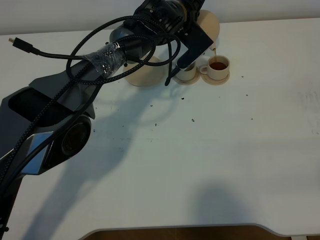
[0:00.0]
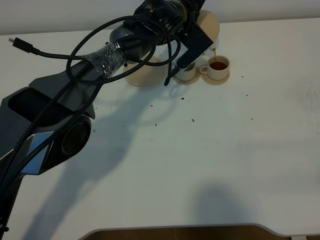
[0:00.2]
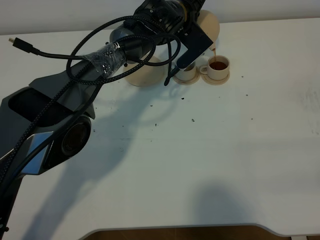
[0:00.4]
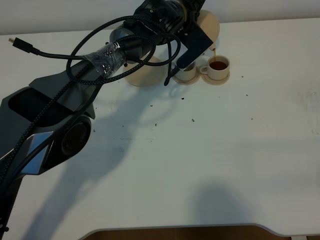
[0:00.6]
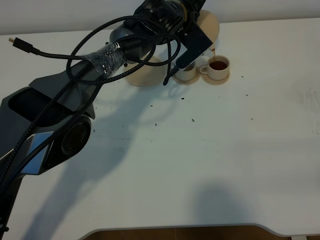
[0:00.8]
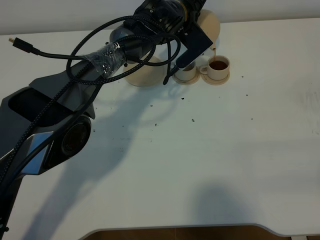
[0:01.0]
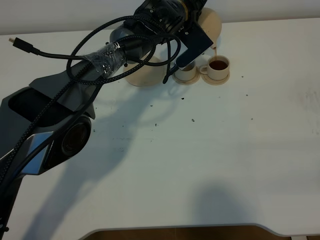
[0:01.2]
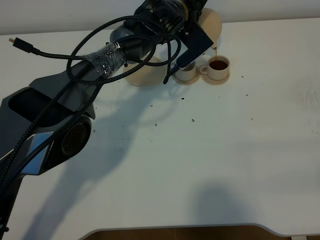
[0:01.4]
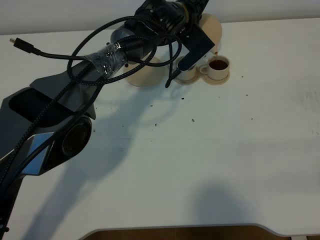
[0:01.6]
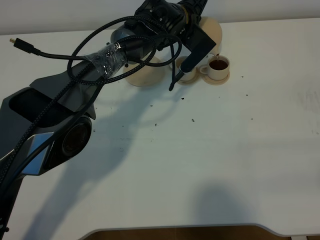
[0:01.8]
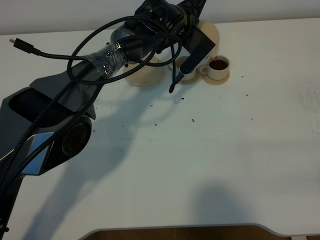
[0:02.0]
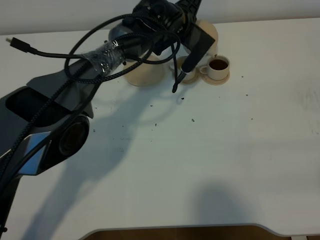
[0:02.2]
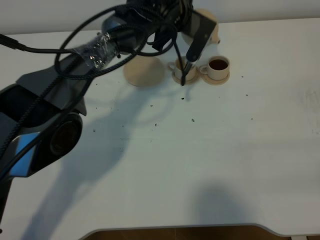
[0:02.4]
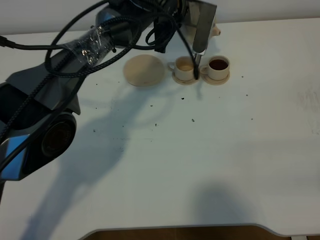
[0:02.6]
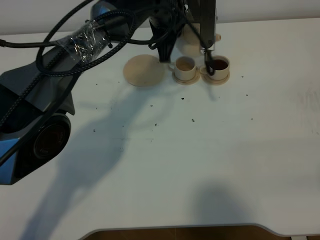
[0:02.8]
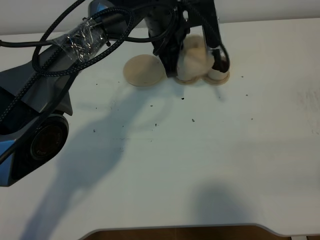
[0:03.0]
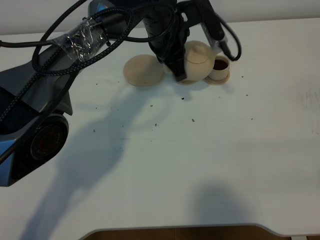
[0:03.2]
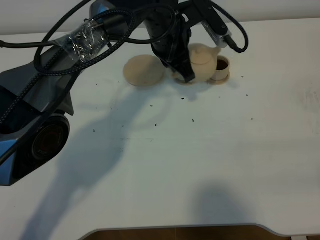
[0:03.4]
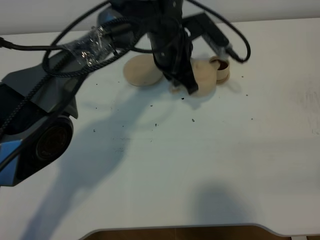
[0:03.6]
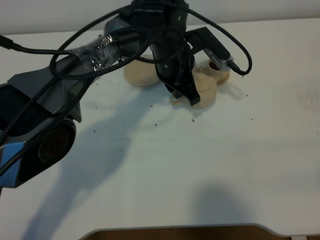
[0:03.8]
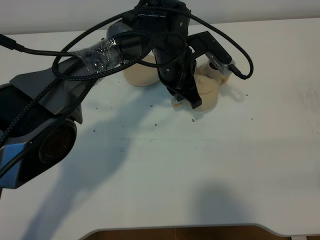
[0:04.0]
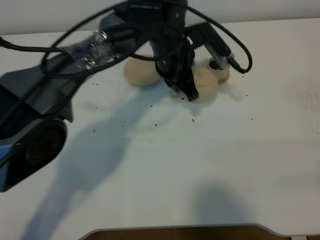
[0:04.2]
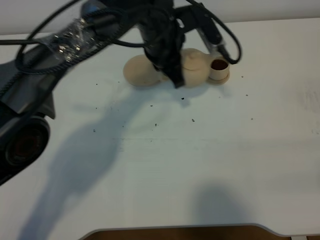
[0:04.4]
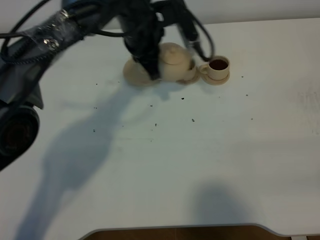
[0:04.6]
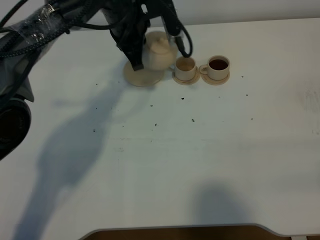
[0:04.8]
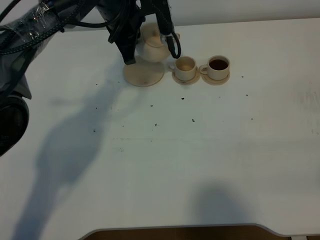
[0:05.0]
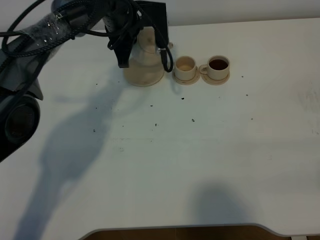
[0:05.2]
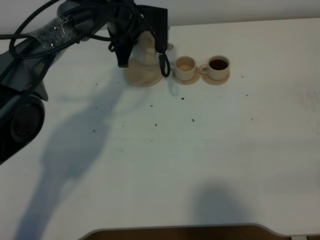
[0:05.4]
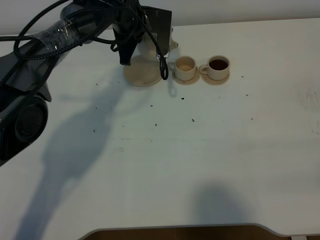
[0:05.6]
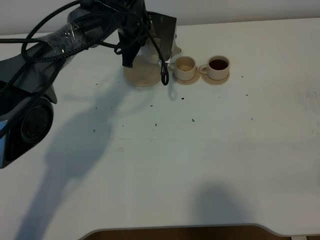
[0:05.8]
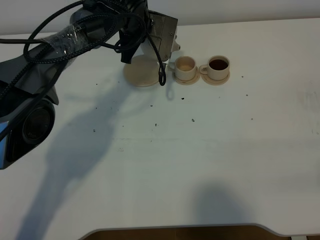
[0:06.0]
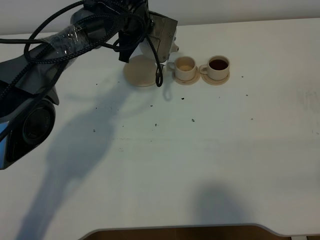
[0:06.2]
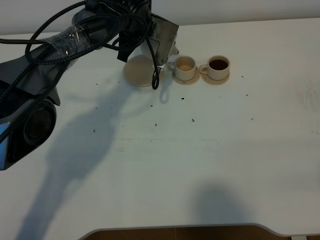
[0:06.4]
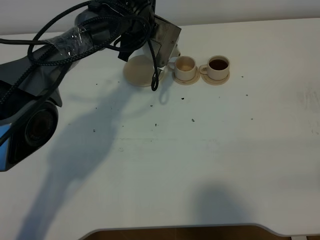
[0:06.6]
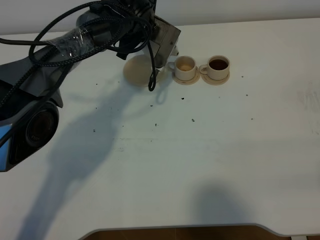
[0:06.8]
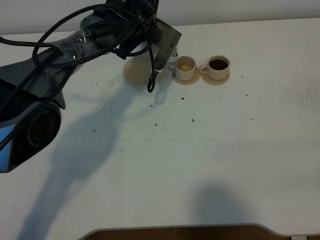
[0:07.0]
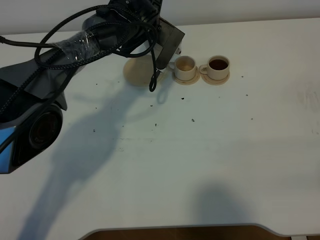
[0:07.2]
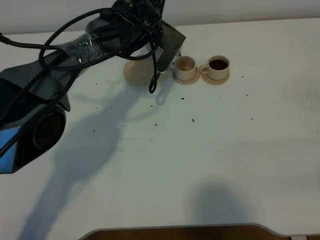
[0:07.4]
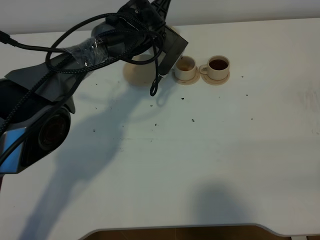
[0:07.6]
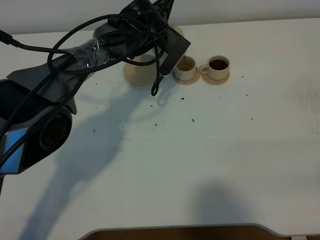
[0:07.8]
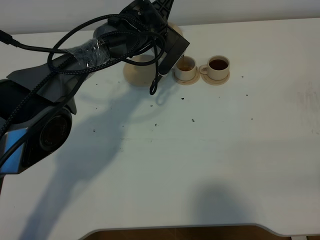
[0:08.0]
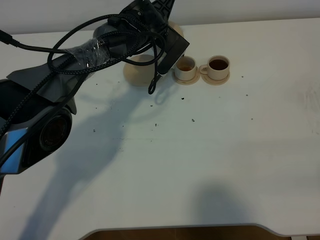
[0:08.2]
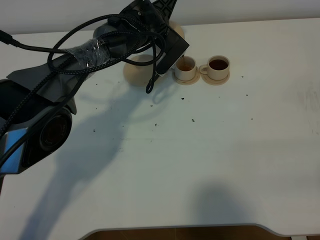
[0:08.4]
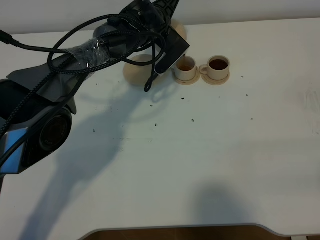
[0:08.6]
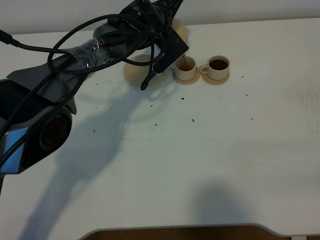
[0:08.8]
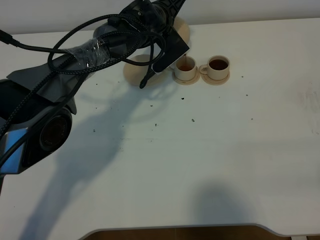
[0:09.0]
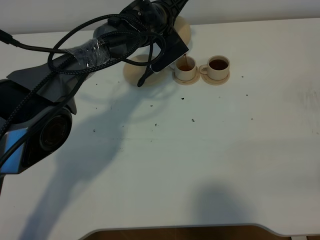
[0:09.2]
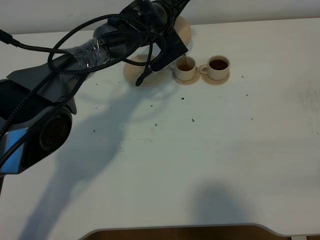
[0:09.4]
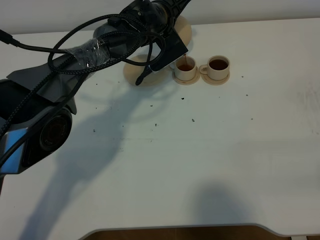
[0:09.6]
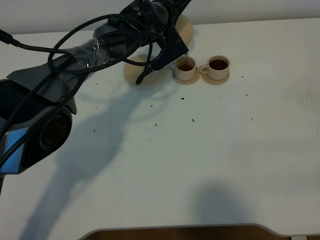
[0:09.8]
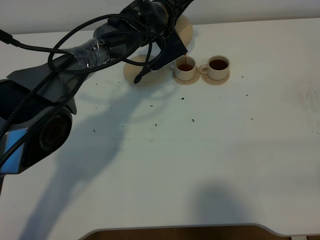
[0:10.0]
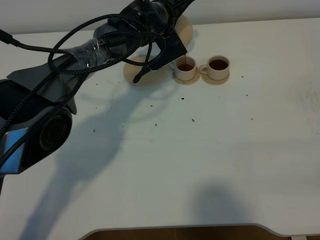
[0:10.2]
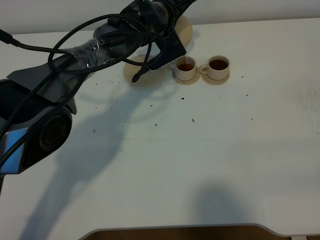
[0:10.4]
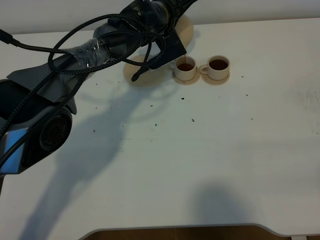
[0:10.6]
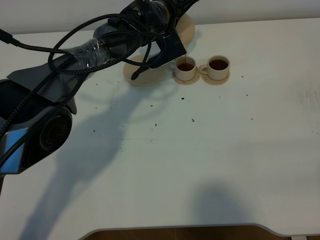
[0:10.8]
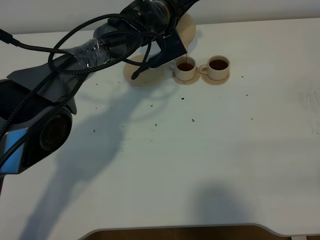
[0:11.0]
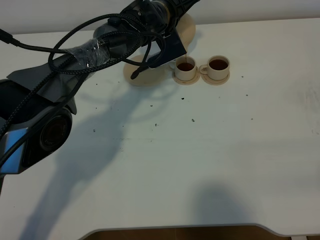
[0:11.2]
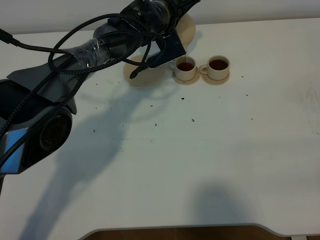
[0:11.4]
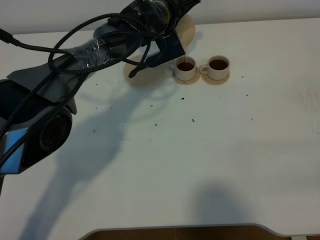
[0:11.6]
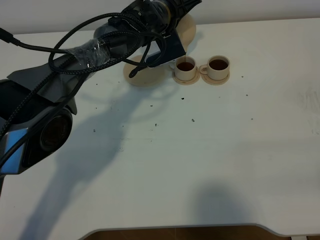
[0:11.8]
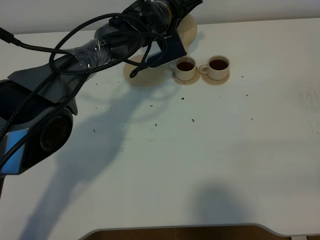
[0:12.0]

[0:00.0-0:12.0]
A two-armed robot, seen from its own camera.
Task of the whole recording: grasp the brown teapot and pour the tea into the two brown teacups one by one, put the brown teapot back in its original place.
0.0 to 1.6 s: Both grippers stay about where they are.
1.6 to 3.0 s: The left gripper moves backward, some 5 cm.
4.4 to 6.0 s: The left gripper heads forward, covering roughly 10 cm.
7.6 to 9.0 s: The grippers move only a little.
9.0 to 12.0 s: The grippers move only a little.

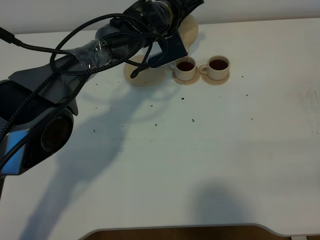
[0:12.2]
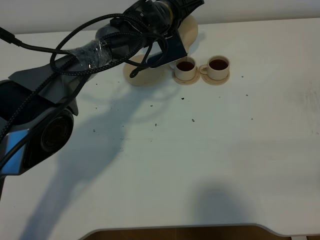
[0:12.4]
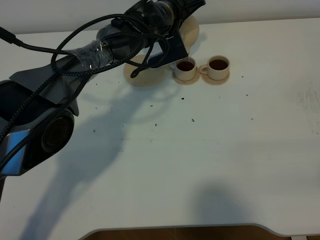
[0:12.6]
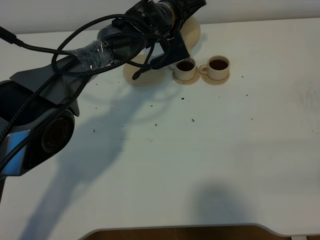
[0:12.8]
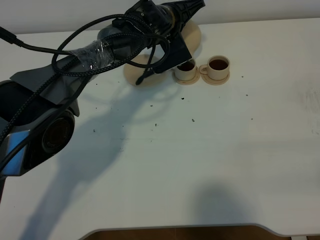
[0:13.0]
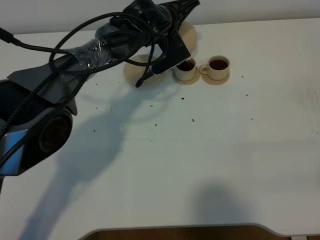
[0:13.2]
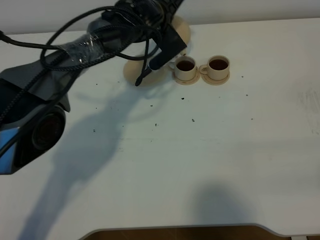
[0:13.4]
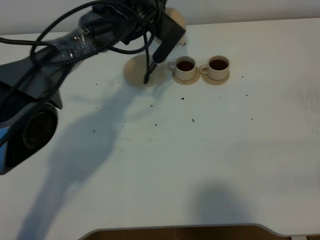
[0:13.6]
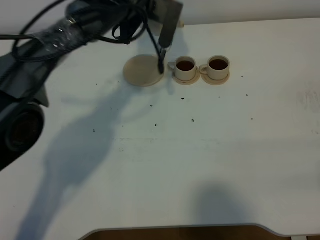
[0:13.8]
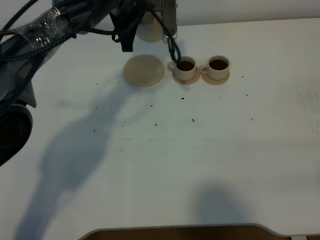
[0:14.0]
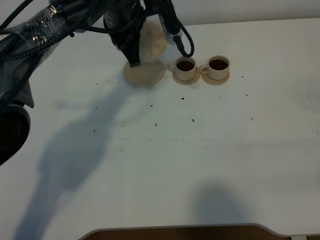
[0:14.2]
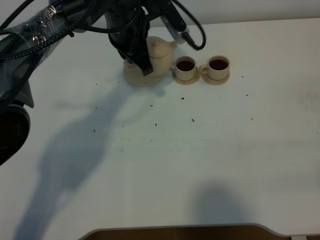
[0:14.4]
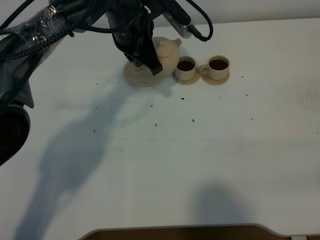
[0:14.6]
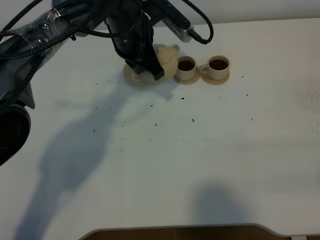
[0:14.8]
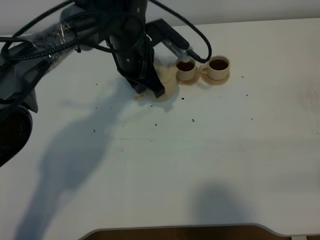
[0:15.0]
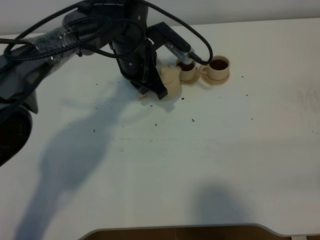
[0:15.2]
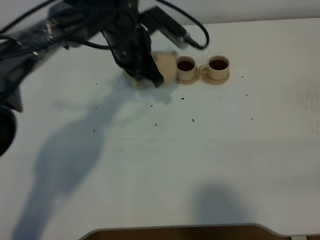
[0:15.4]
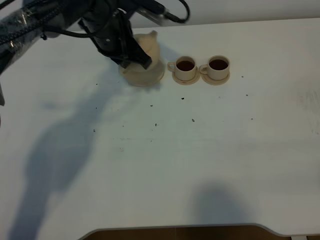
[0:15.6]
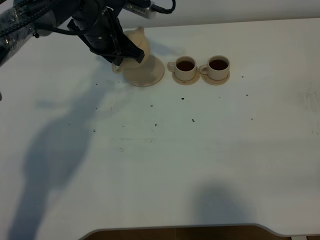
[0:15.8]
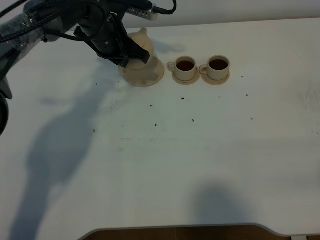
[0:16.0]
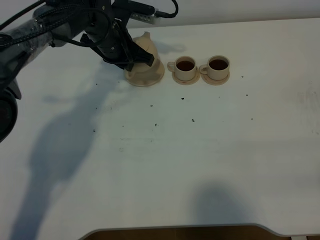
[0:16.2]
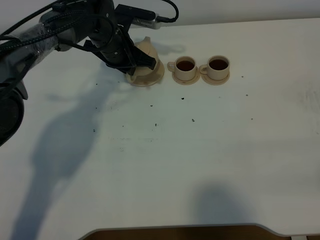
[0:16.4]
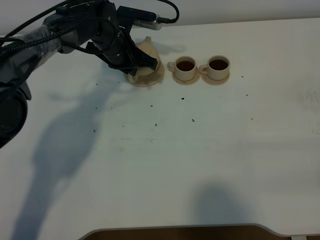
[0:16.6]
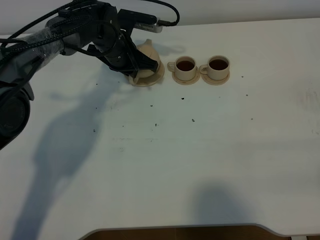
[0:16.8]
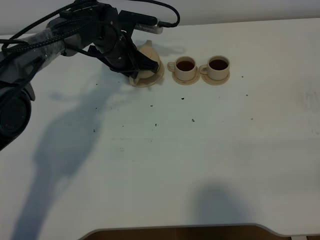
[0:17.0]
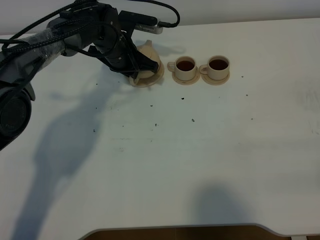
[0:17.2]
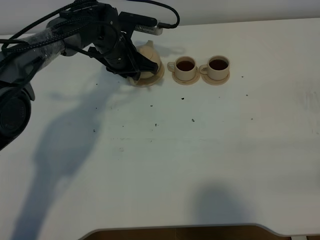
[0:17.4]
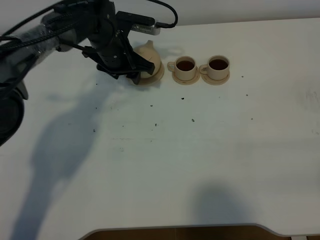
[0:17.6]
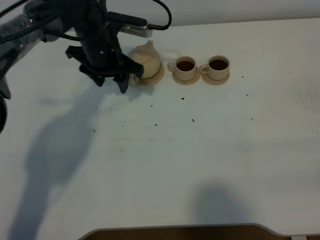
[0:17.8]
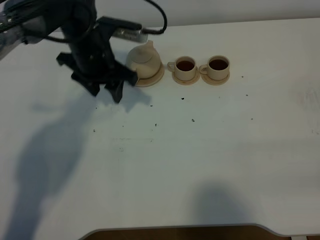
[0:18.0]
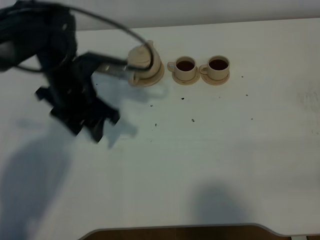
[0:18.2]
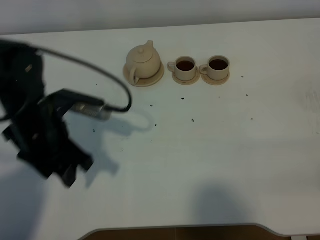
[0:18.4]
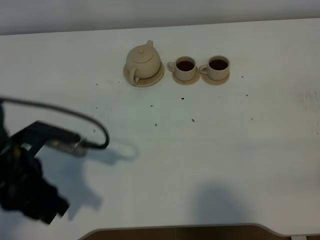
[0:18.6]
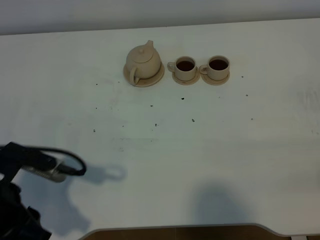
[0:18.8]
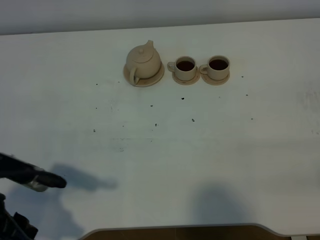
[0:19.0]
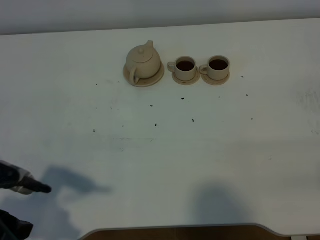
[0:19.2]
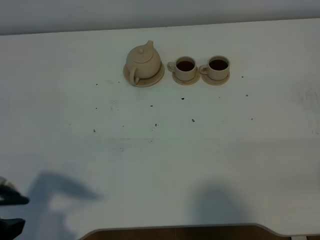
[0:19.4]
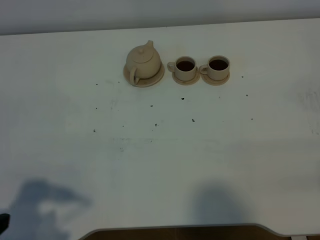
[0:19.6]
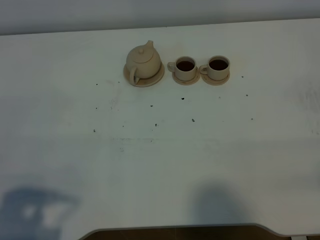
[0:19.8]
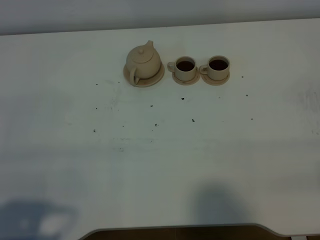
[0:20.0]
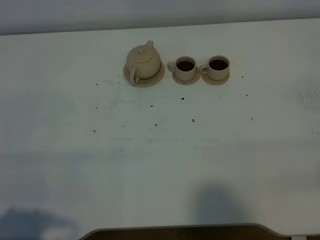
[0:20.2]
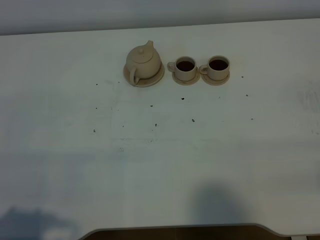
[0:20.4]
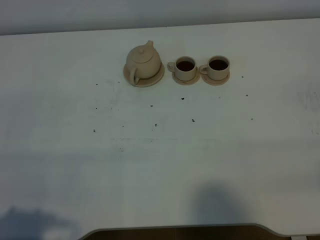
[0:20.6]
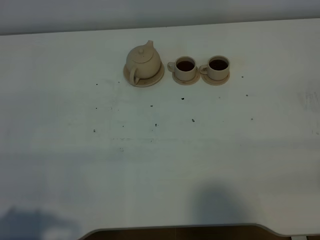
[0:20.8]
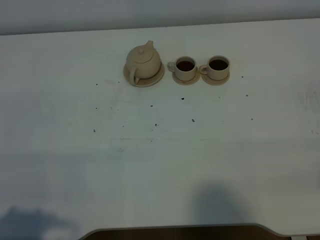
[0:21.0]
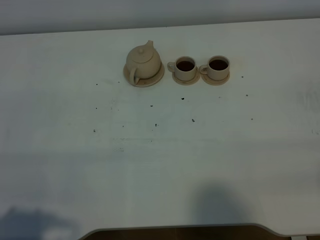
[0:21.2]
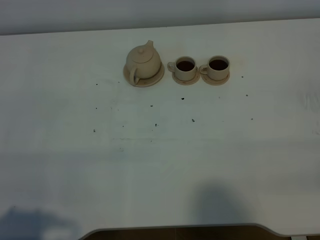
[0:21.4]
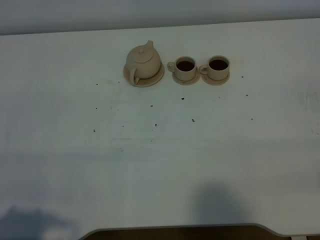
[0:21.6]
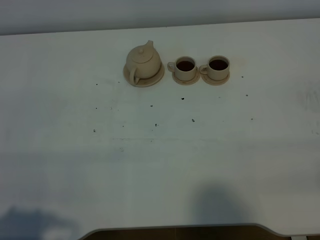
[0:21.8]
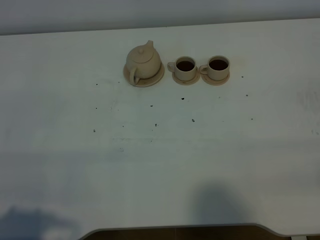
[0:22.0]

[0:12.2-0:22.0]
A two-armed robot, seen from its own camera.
Task of the whole recording: grasp the brown teapot and pour the tea into the two brown teacups one by one, put the brown teapot back in its original place.
13.6 to 15.0 s: The left gripper is displaced backward by roughly 10 cm.
15.0 to 16.4 s: The left gripper moves forward and to the left, some 5 cm.
16.4 to 17.8 s: The left gripper ends up approximately 5 cm from where it was, and opens up.
17.8 to 19.2 s: The left gripper moves backward, roughly 35 cm.
19.2 to 20.6 s: The left gripper heads backward, covering some 10 cm.
20.6 to 22.0 s: The two grippers keep their place.

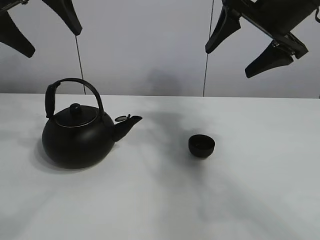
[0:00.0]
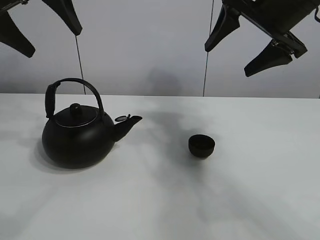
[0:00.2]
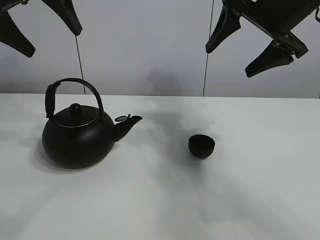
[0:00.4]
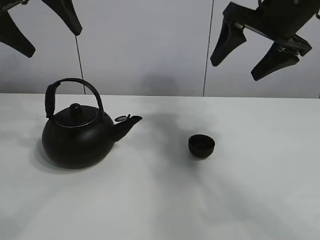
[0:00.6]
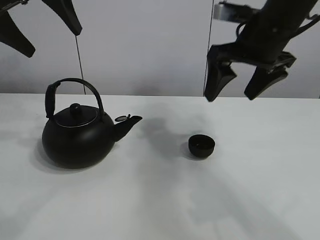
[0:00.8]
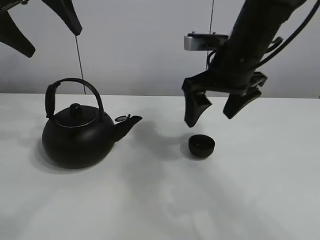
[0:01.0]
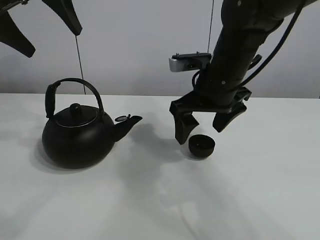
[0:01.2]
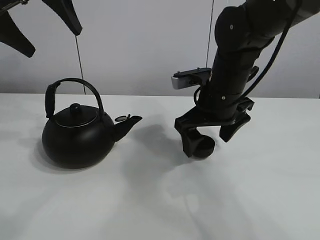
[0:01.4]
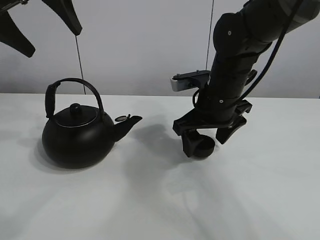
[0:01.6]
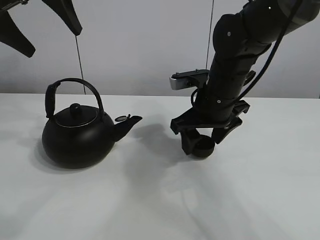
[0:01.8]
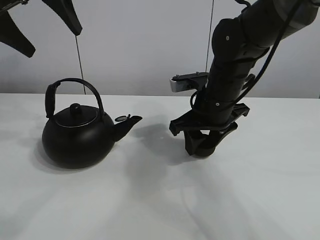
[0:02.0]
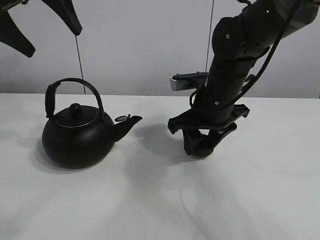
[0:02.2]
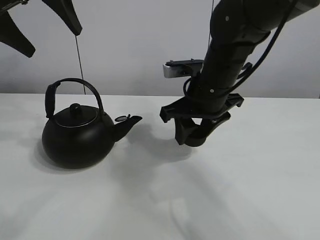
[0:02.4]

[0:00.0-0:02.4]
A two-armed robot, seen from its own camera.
Task of the whole recording: pour tea into the teacup.
Step, 0.0 to 2.2 s: Pick up the teacup with the right gripper.
1.2 to 2.4 s: The right gripper closes up.
